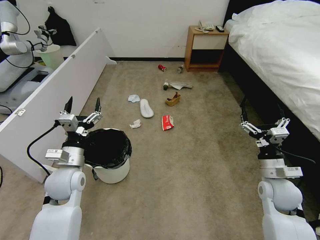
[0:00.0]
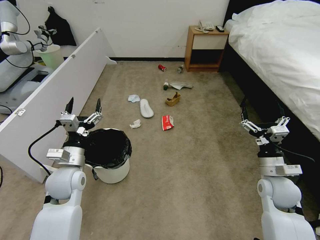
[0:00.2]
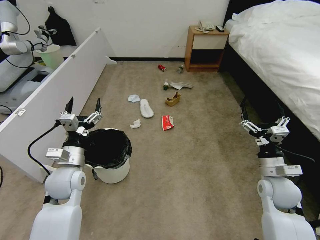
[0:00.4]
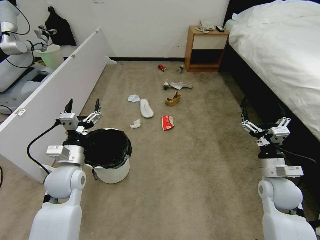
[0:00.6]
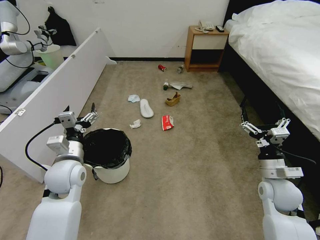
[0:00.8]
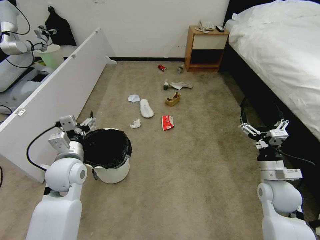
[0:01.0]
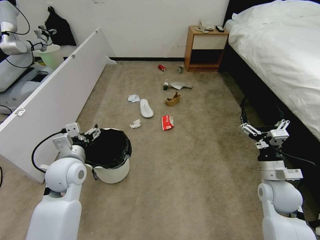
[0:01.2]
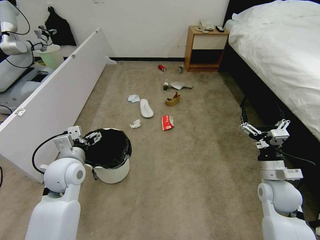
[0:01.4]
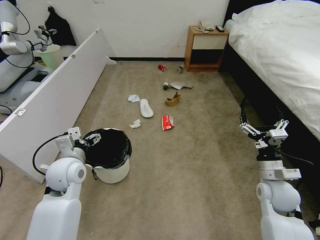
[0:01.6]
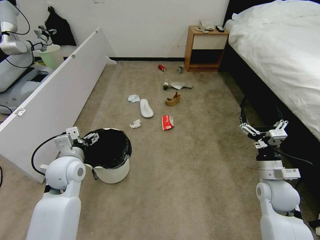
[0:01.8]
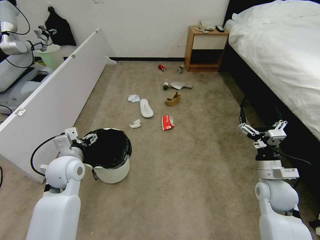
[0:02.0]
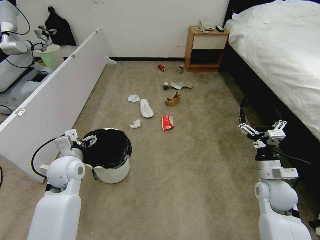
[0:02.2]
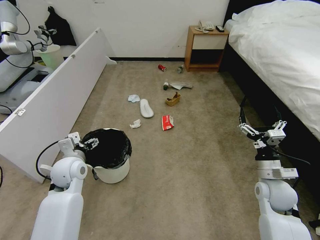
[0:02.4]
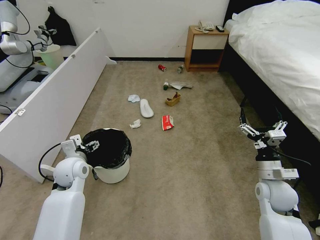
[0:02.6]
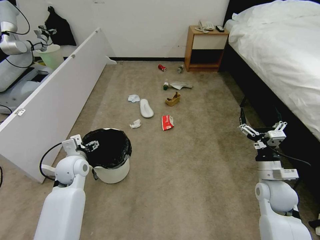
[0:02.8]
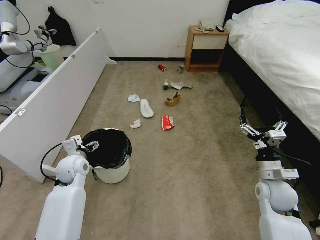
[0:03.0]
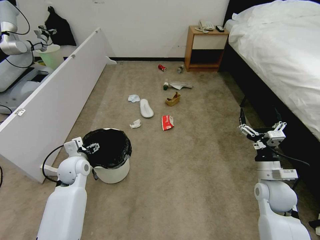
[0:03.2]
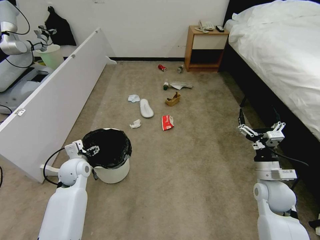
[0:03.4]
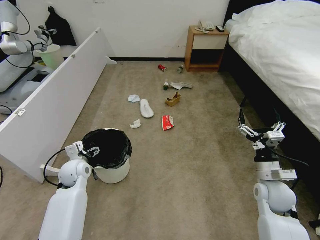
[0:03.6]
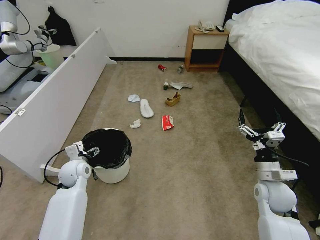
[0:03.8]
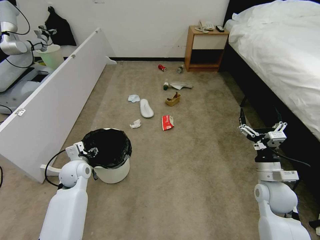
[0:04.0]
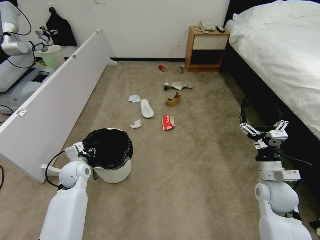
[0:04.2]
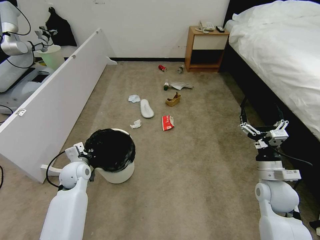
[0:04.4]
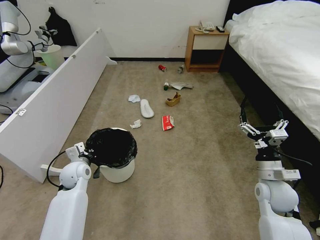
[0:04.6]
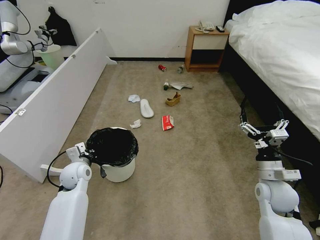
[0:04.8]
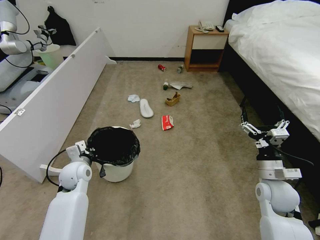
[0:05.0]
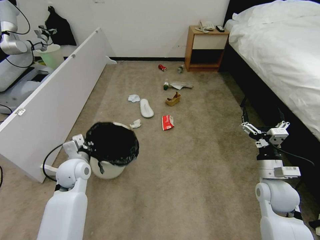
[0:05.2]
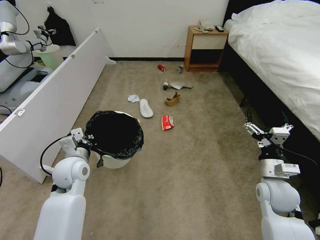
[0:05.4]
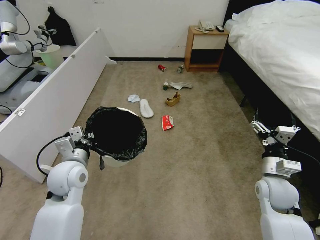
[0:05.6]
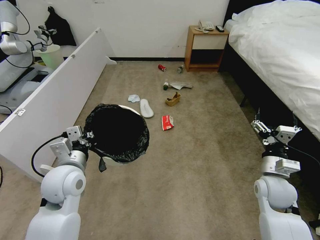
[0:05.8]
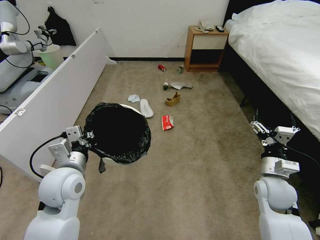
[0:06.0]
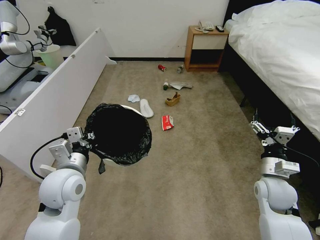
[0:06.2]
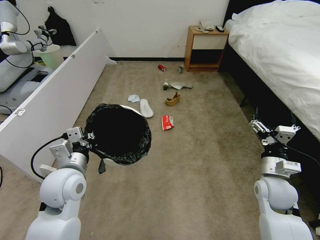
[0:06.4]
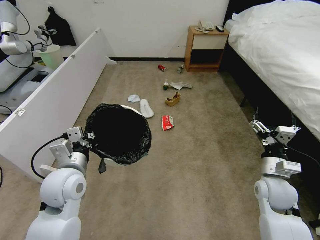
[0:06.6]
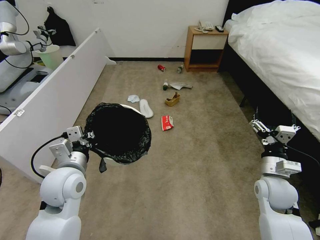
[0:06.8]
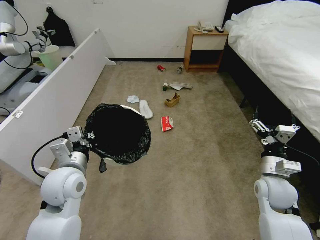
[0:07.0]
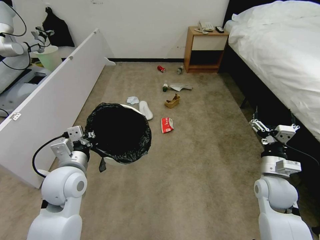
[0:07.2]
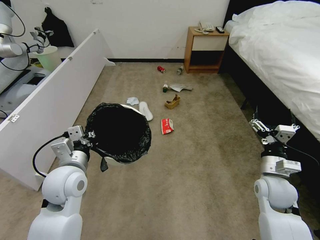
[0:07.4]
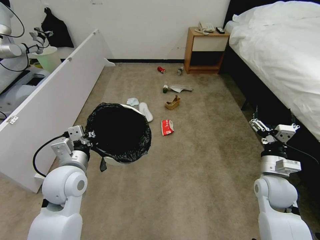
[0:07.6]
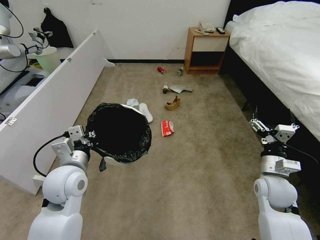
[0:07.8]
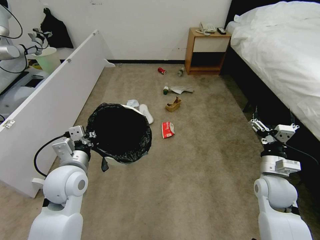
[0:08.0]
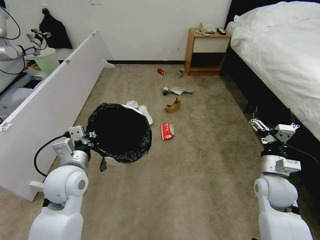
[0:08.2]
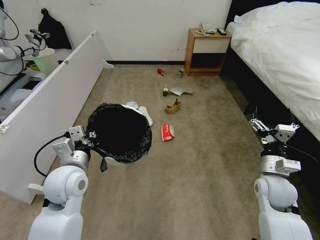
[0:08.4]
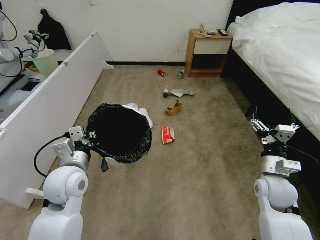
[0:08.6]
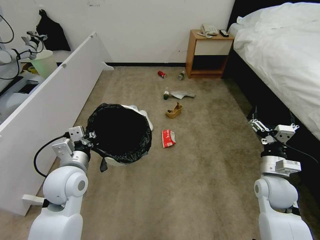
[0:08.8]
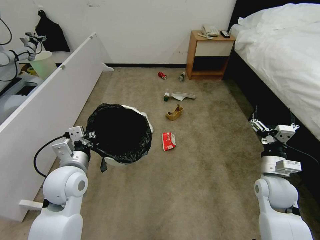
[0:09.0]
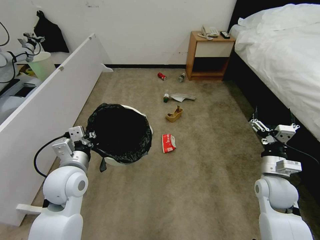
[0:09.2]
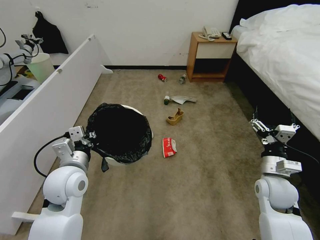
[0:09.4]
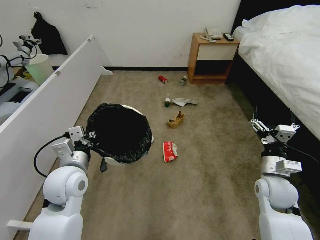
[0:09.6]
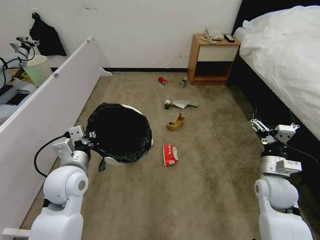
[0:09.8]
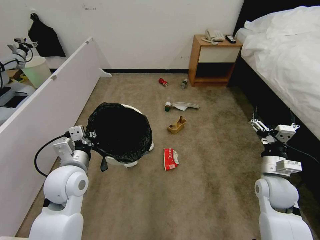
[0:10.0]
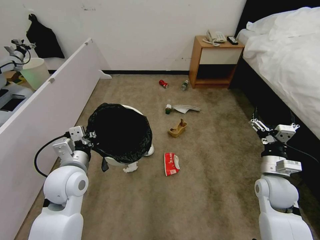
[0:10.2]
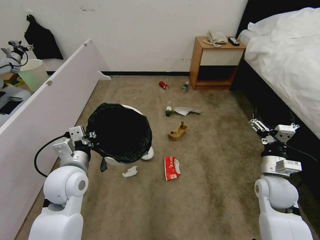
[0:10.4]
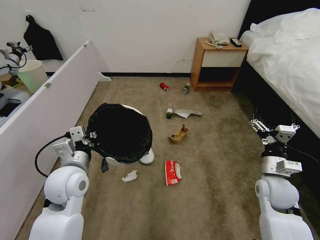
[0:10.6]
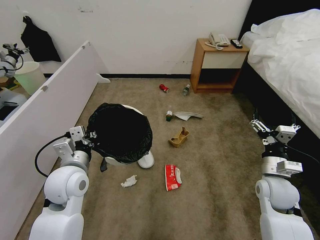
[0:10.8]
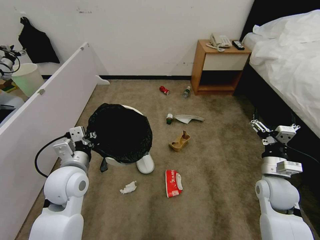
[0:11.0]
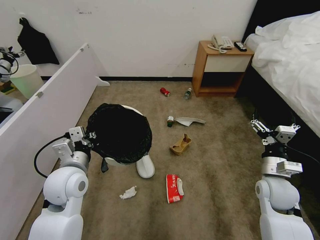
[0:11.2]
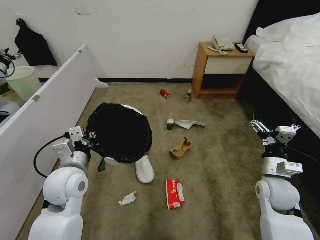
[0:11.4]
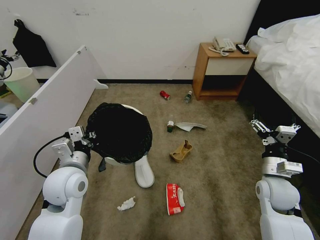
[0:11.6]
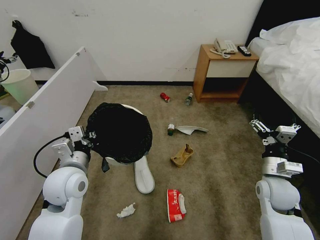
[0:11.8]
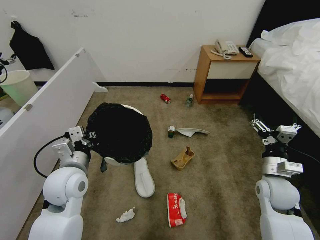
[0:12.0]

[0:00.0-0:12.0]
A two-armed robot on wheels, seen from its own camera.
Task of the whole recording: Pick up the trash bin, then pick up the garbage from the floor and place it into the trash bin.
0:01.6 to 0:03.0: The left gripper goes some 10 cm downward and forward.
0:03.0 to 0:04.4: The left gripper closes its fingers.
0:04.4 to 0:06.0: The left gripper shifts about 20 cm upward, backward and to the right.
0:06.0 to 0:10.4: Neither gripper changes place.

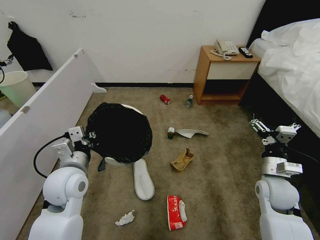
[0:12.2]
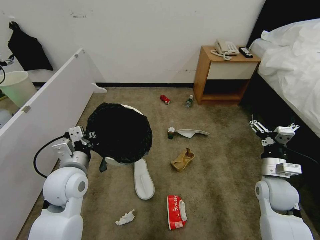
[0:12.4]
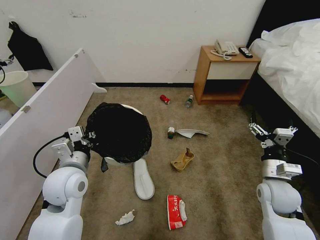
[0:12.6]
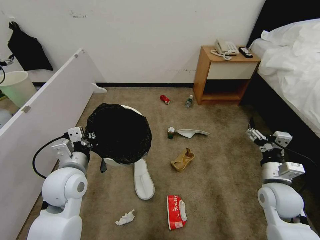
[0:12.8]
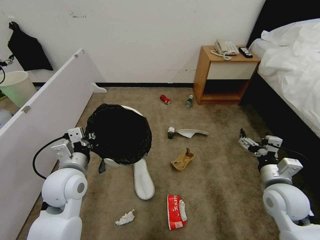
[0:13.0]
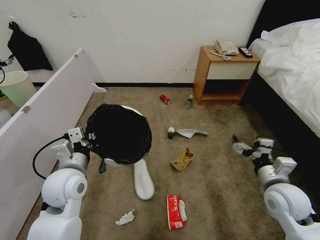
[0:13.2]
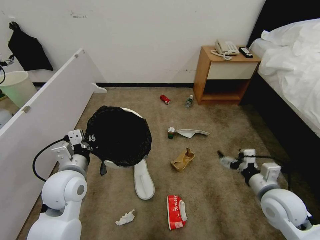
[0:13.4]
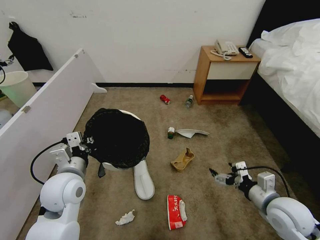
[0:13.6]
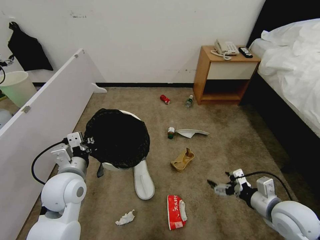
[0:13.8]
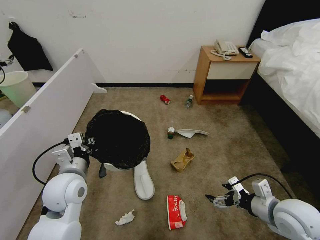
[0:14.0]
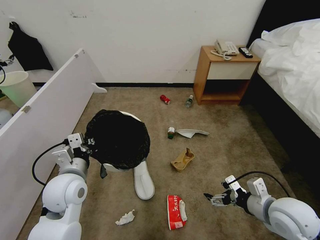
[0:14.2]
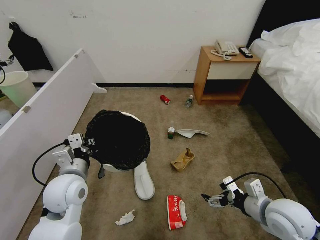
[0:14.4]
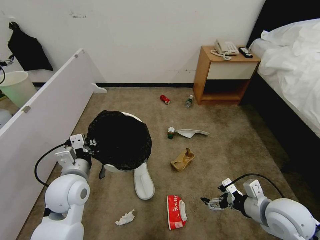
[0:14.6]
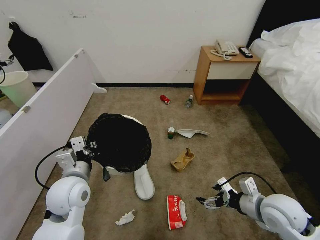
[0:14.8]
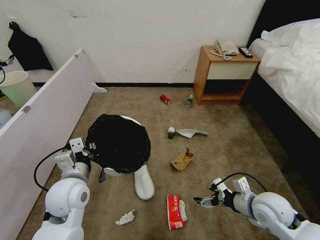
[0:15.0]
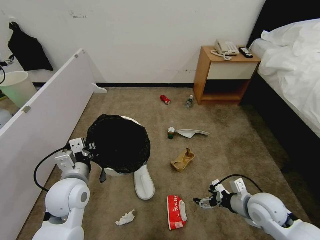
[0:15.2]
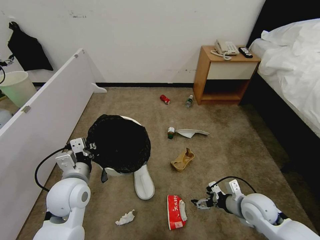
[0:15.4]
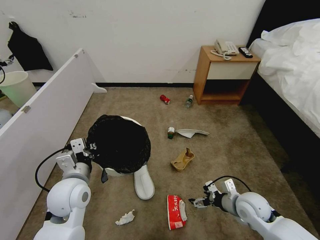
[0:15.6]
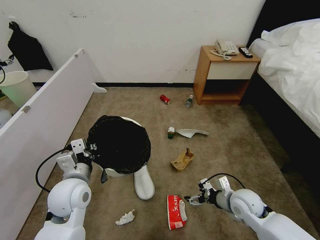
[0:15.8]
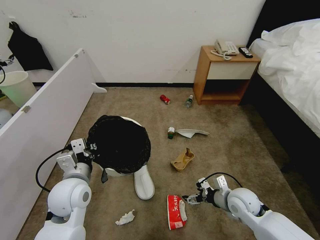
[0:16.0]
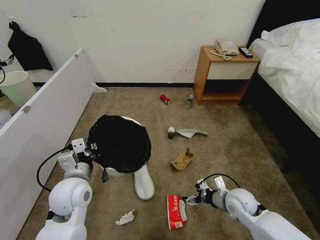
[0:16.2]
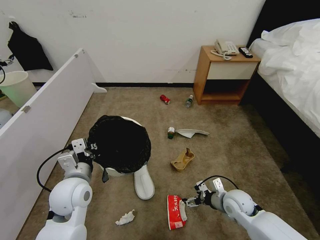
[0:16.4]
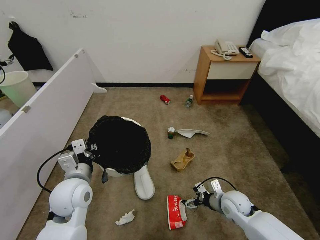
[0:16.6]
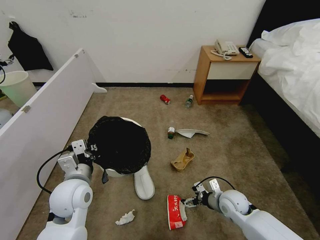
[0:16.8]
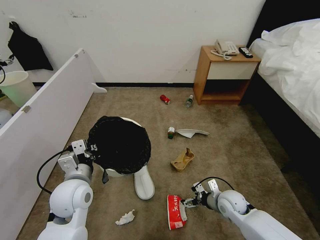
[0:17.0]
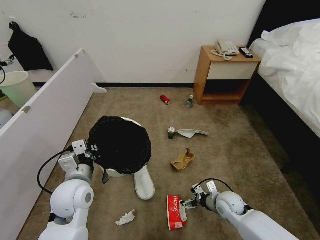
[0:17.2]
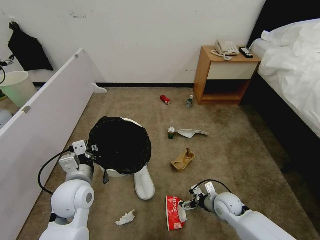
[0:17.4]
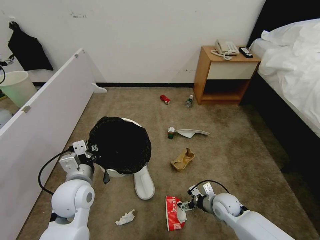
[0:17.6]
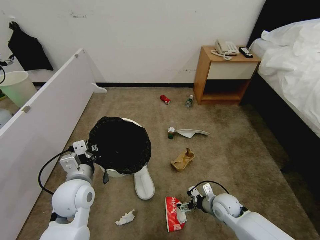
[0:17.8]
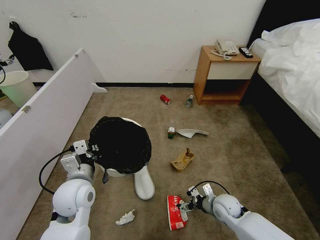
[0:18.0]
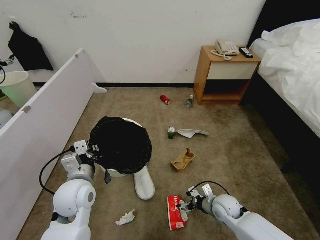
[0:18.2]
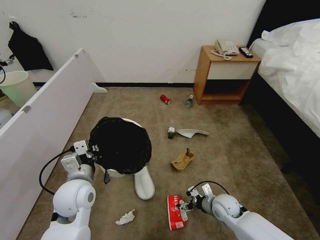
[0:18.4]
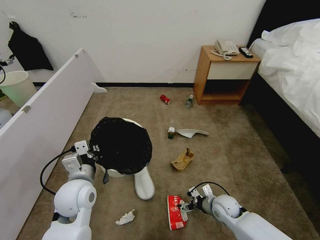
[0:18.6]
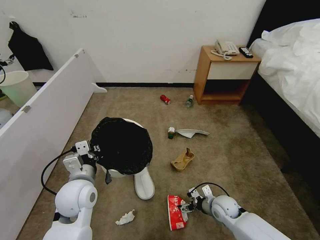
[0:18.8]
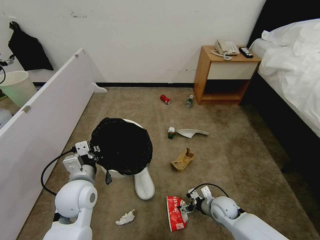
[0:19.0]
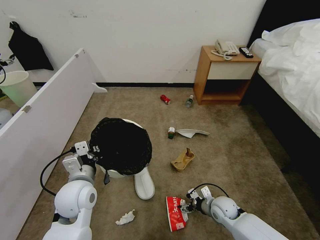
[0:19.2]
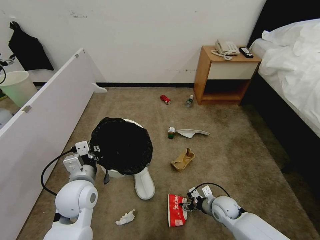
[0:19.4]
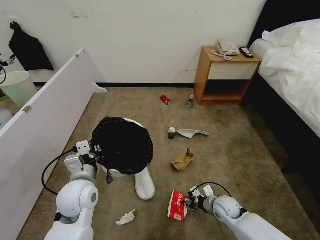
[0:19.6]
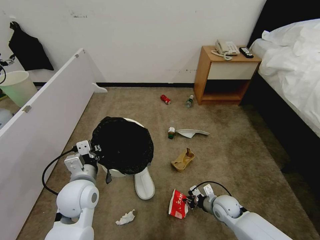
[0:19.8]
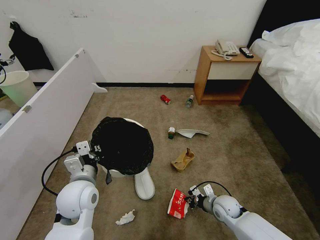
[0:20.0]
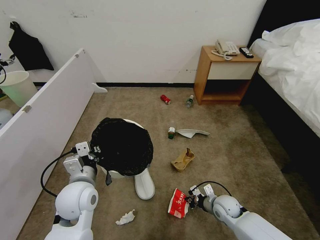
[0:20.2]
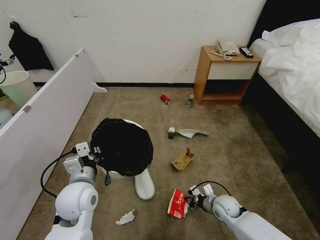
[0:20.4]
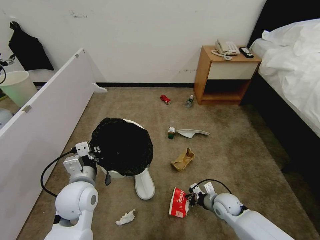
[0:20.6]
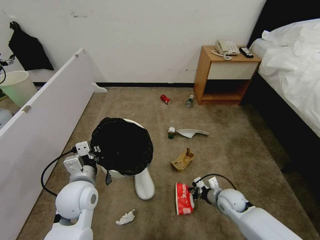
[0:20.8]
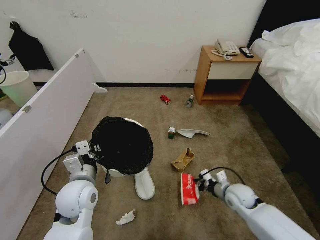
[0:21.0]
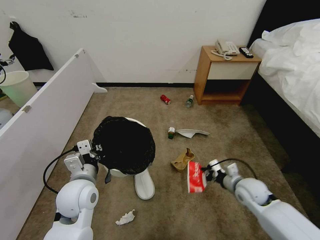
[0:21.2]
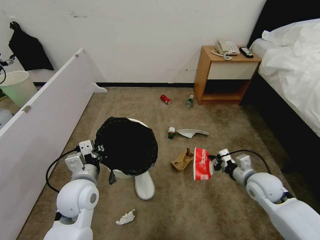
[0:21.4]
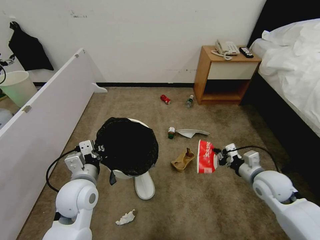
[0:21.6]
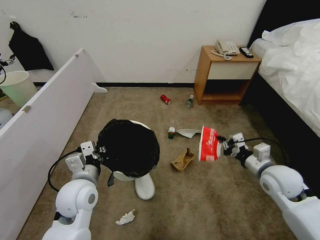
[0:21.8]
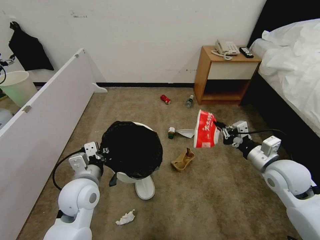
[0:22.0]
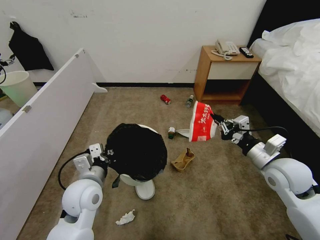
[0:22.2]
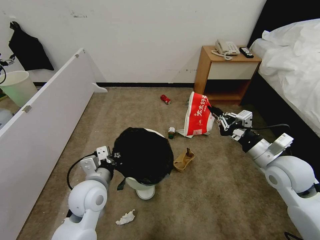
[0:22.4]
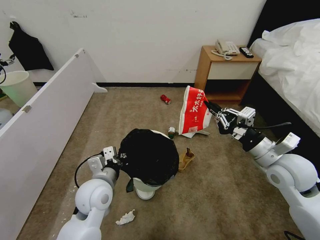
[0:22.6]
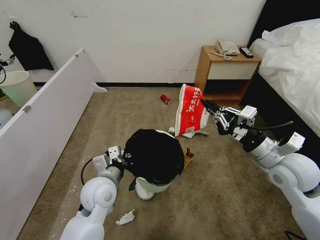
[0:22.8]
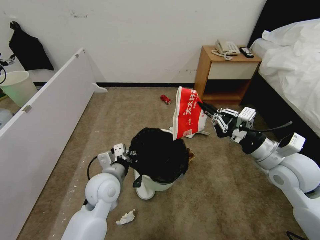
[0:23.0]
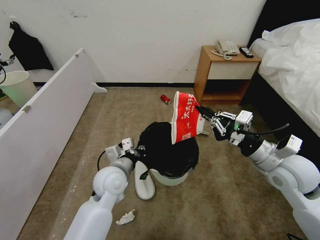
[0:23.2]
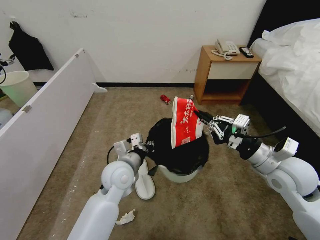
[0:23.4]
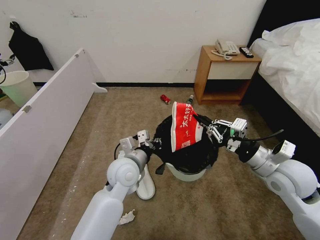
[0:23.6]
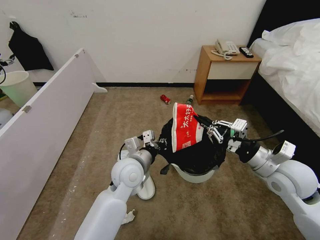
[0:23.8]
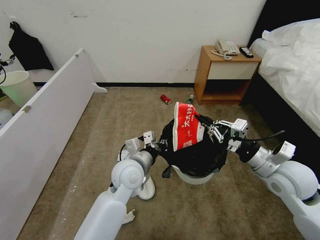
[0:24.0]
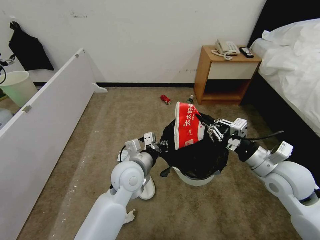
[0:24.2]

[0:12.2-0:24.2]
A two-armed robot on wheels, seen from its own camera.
Task of the whole recording: Pick up the trash bin, then pick up the garbage from the floor and place it into the trash bin.
0:12.2 to 0:13.8: The right gripper moves backward, roughly 10 cm.
0:13.8 to 0:15.2: The right gripper shifts by some 5 cm.
0:15.2 to 0:16.6: The right gripper shifts some 10 cm downward.
0:16.6 to 0:18.2: The grippers stay close to where they were, moving slightly.
0:18.2 to 0:19.8: The right gripper closes.
0:19.8 to 0:21.2: The right gripper travels upward and to the right by approximately 10 cm.
0:21.2 to 0:22.6: The right gripper goes about 20 cm upward.
0:22.6 to 0:24.2: The left gripper shifts some 10 cm to the right.
